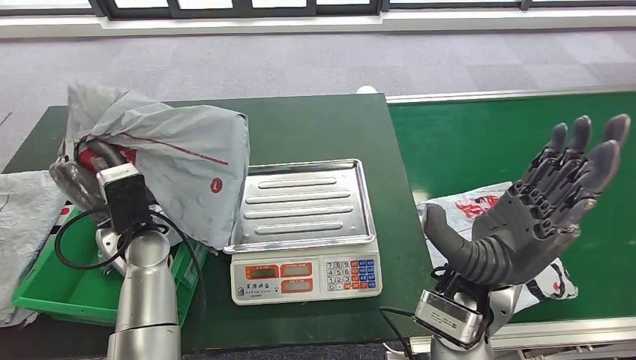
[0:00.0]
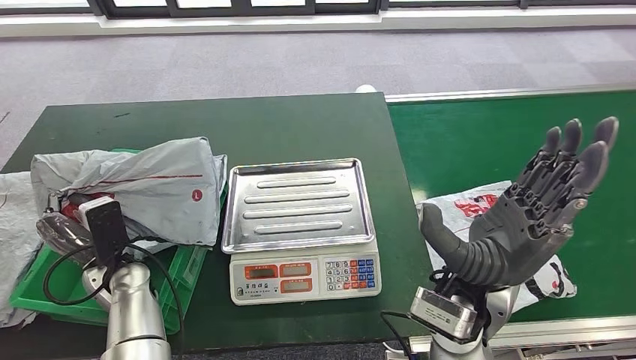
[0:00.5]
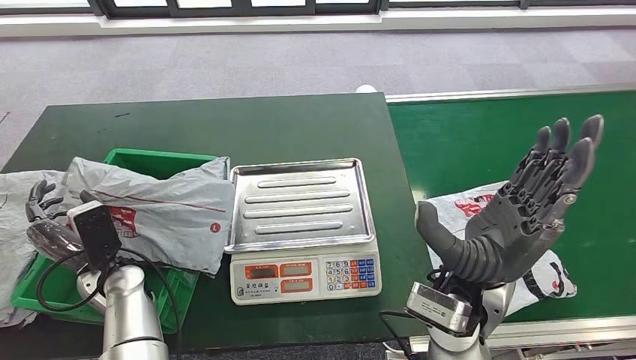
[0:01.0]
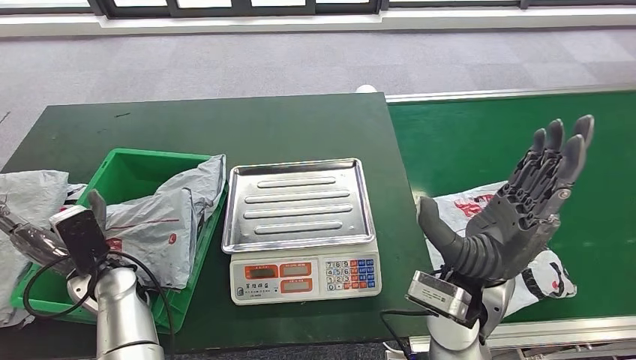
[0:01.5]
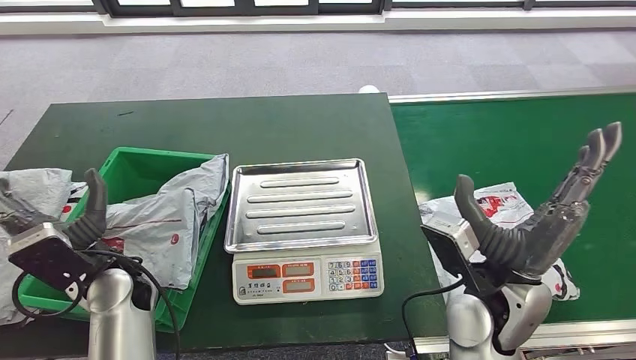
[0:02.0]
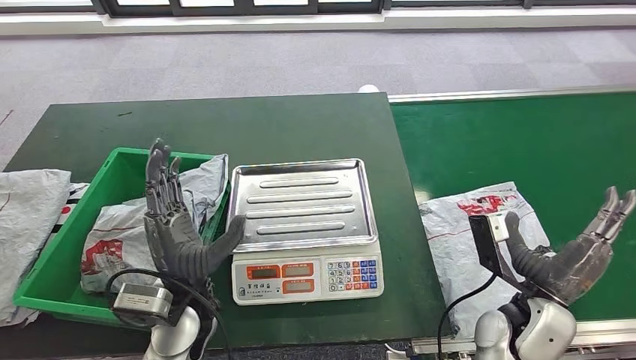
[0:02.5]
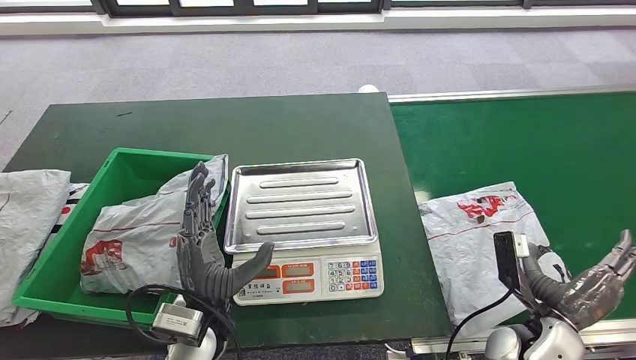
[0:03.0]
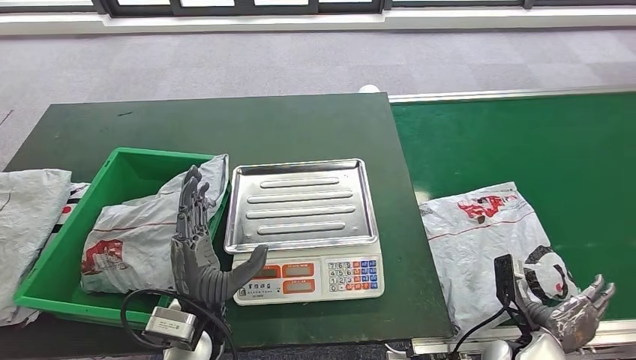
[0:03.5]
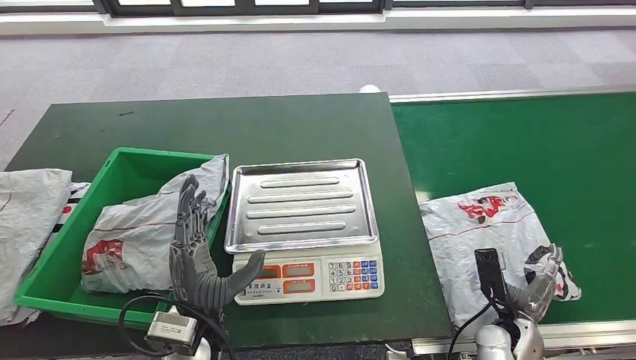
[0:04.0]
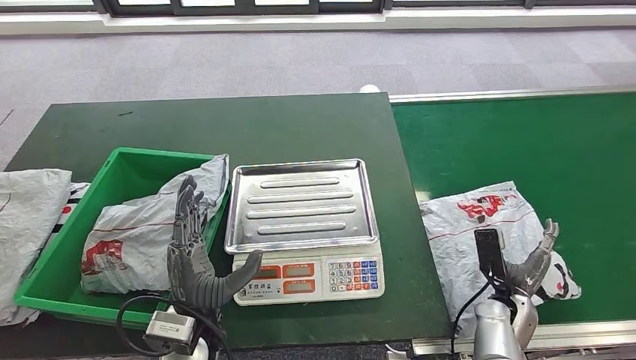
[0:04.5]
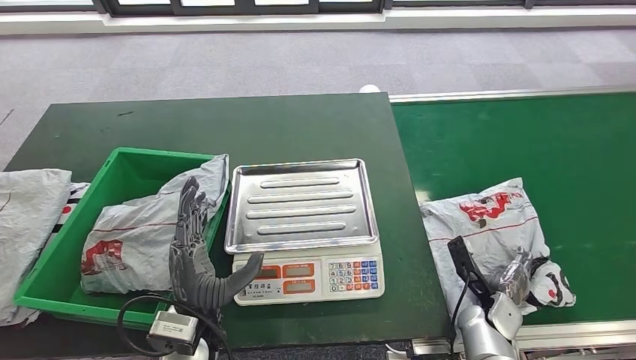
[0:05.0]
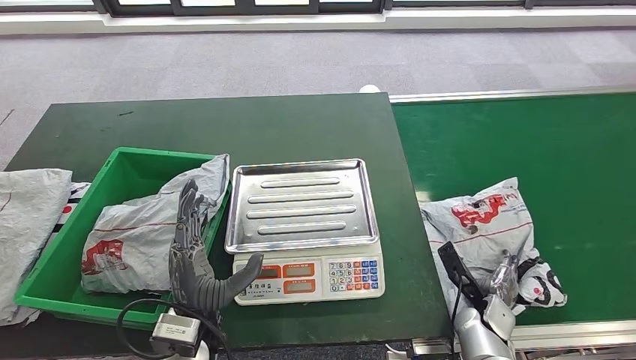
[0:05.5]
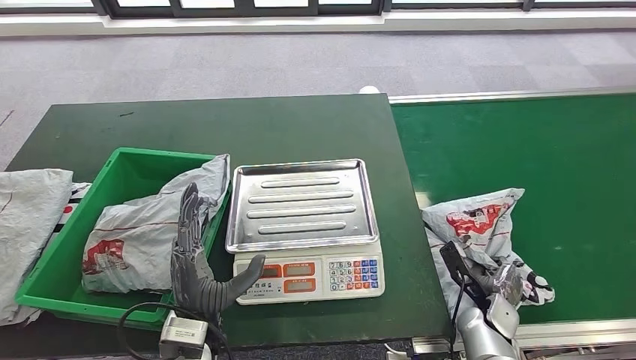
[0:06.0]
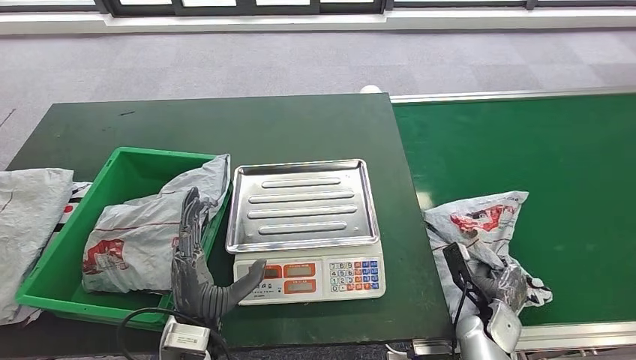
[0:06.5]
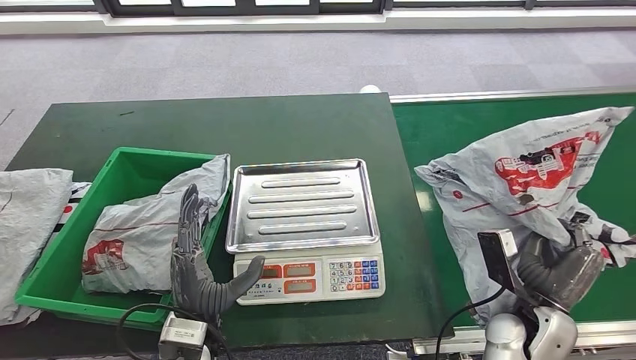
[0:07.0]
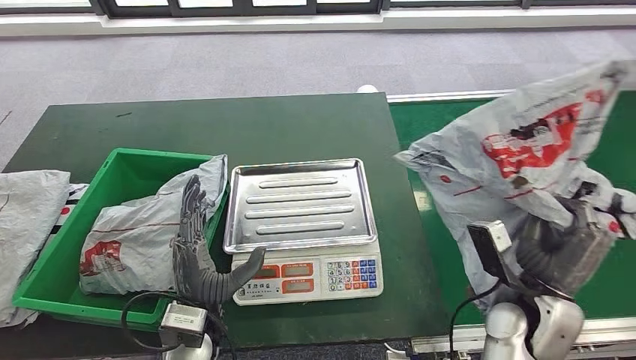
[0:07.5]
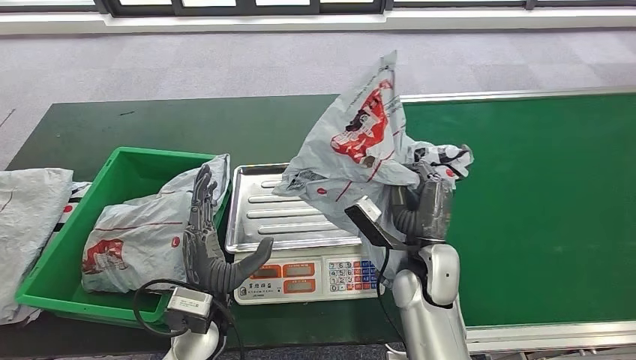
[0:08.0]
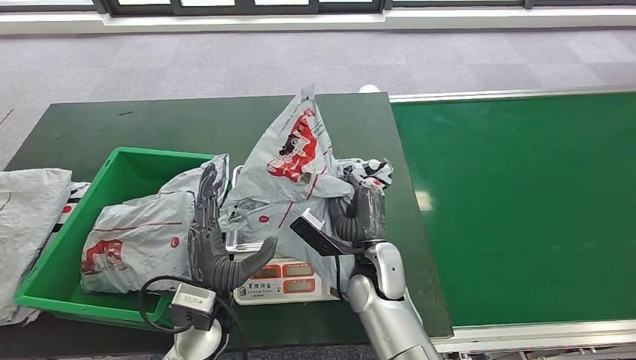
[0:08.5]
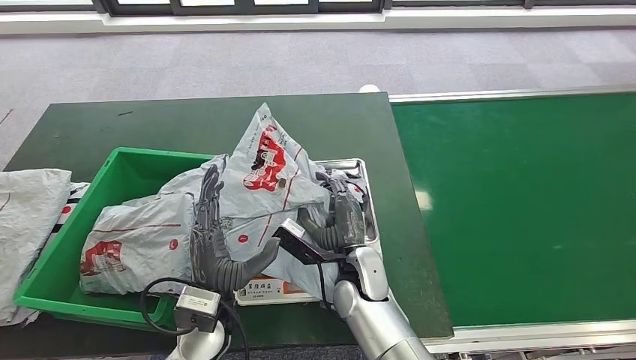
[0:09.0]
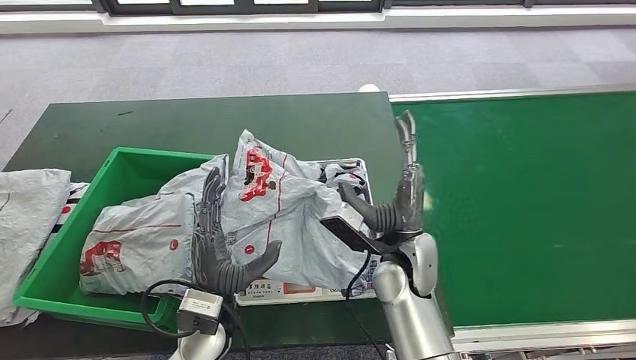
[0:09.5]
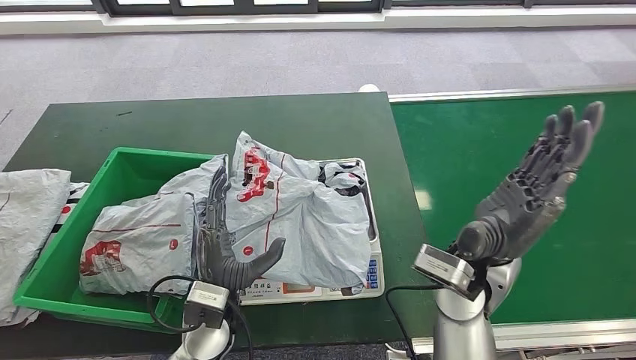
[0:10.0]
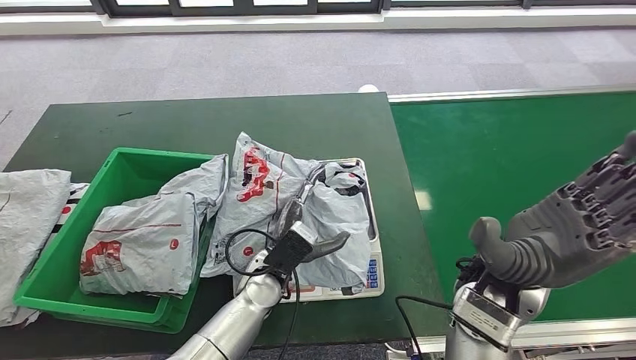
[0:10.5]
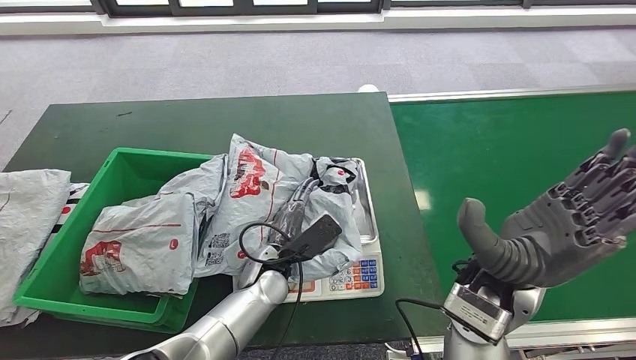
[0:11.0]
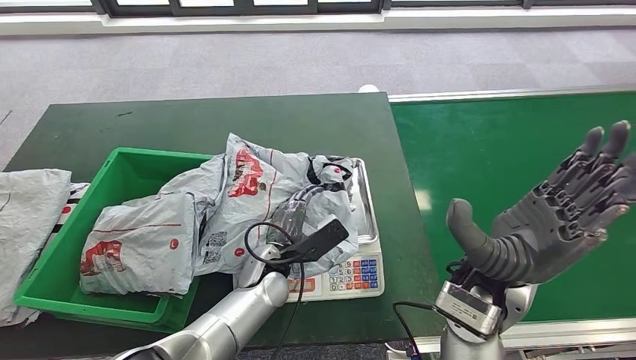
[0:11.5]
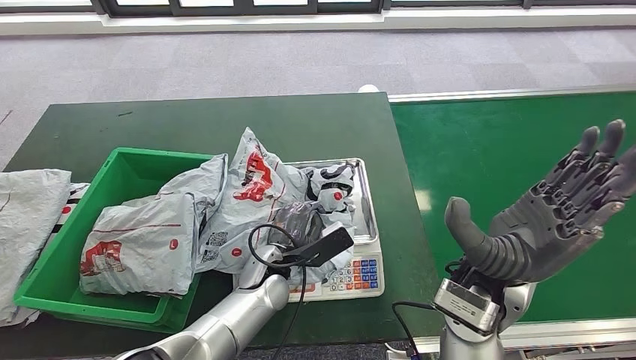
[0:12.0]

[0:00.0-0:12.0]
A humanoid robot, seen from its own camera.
Step, 0:00.0 to 0:02.0: Pick up the parcel from the conveyor belt.
Step, 0:02.5 to 0:09.5: Place the parcel onto the inbound machine.
0:02.0 to 0:04.0: The right hand is displaced downward and to the right by approximately 25 cm; the left hand shifts roughly 15 cm to the right and backward.
0:10.0 to 0:12.0: The left hand travels forward and to the right by approximately 10 cm.

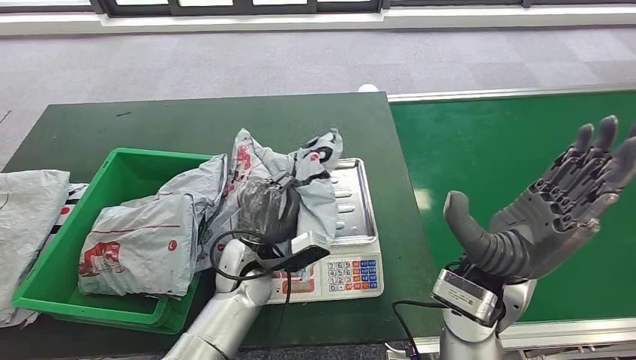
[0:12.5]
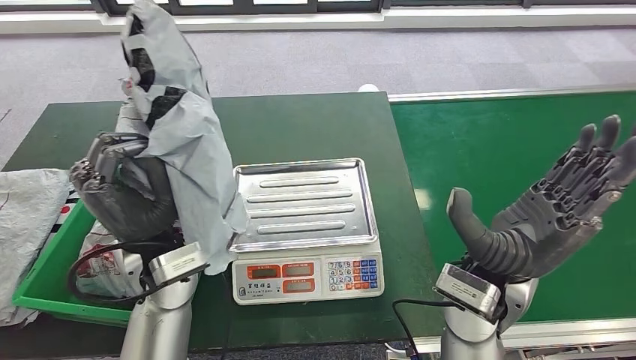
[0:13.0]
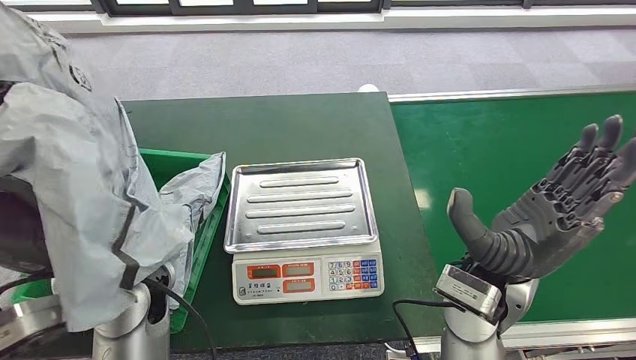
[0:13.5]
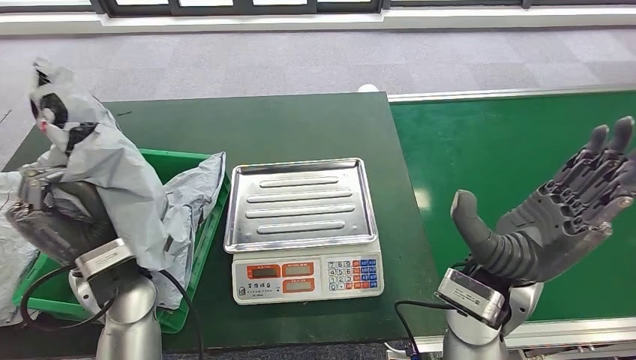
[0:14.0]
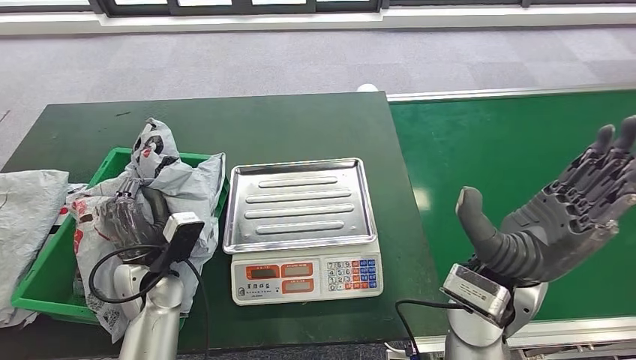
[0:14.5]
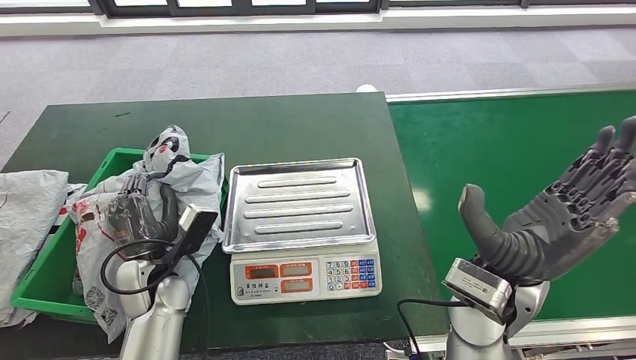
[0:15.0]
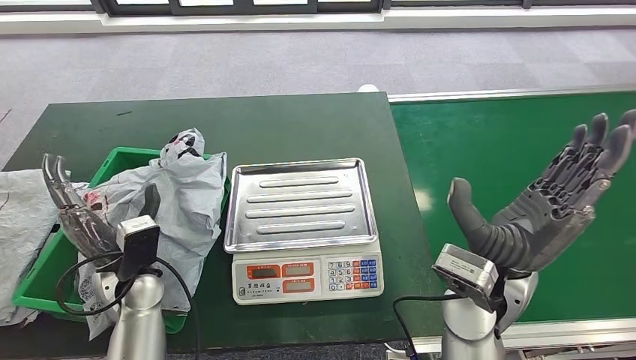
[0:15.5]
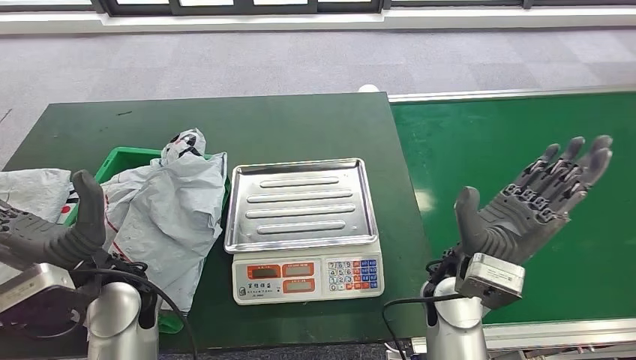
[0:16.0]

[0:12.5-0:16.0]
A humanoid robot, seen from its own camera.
Step, 0:13.0 to 0:16.0: Place the parcel into the delivery box.
